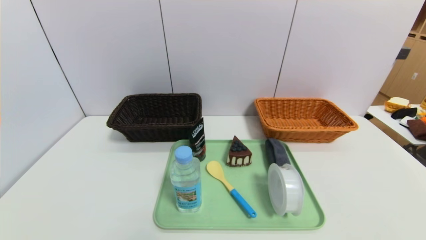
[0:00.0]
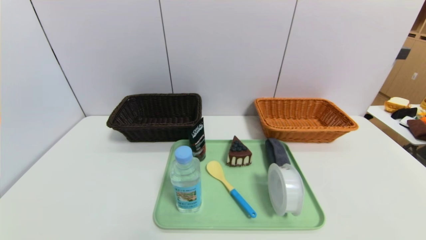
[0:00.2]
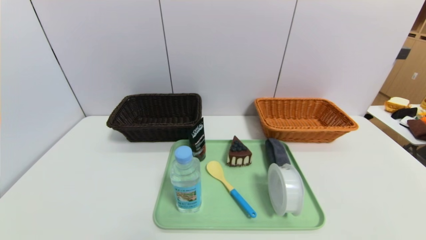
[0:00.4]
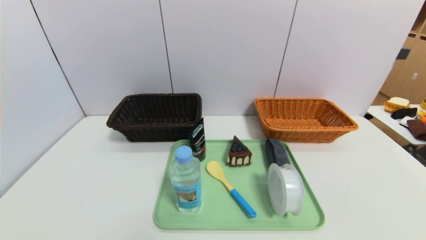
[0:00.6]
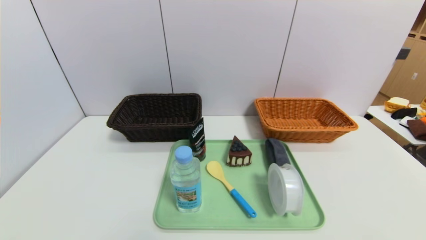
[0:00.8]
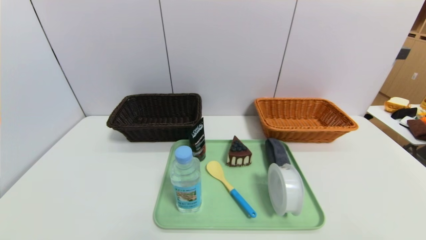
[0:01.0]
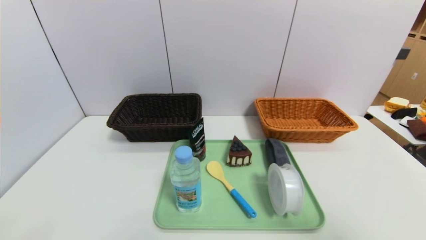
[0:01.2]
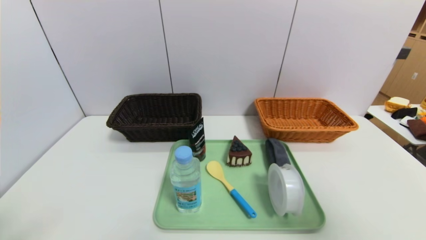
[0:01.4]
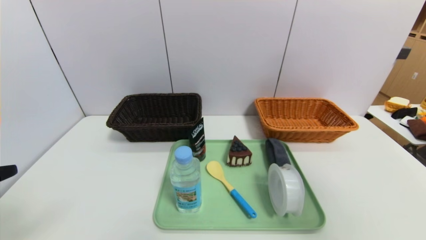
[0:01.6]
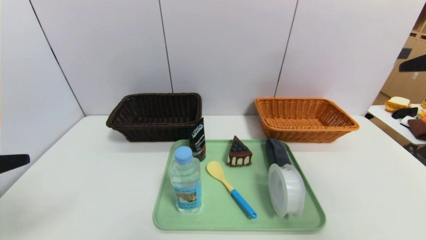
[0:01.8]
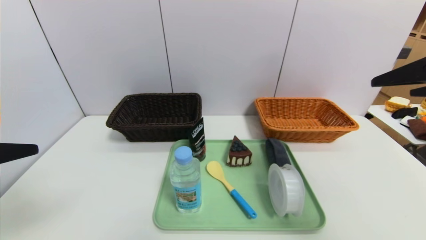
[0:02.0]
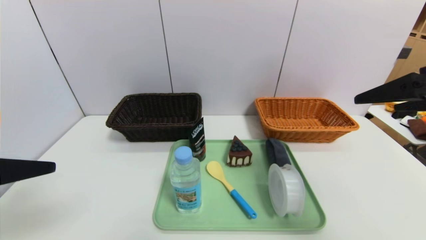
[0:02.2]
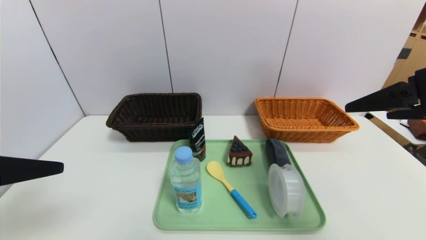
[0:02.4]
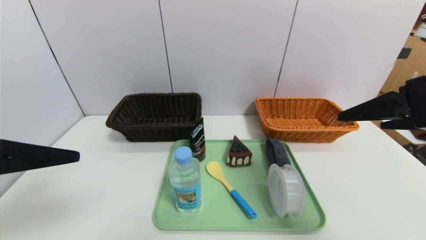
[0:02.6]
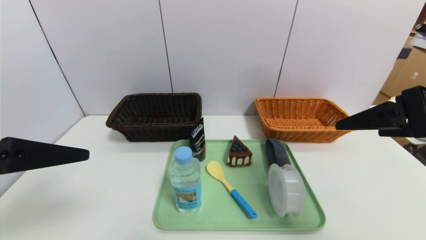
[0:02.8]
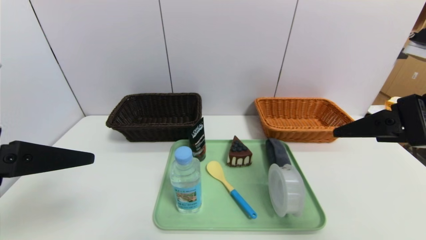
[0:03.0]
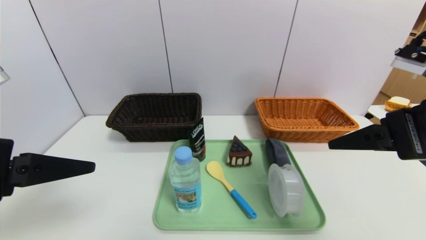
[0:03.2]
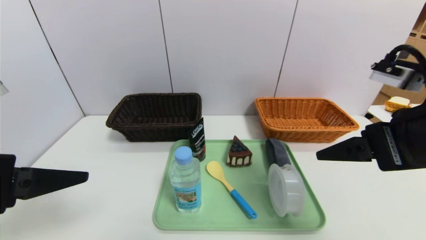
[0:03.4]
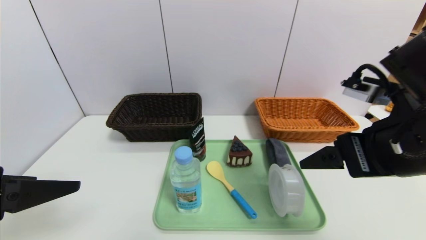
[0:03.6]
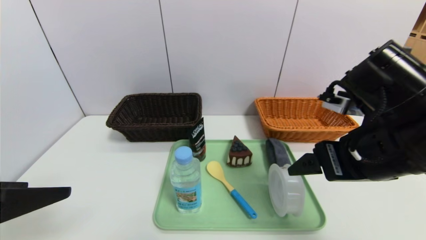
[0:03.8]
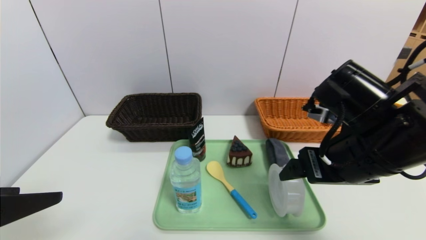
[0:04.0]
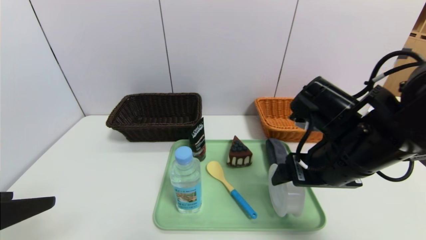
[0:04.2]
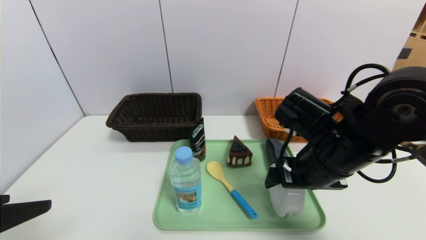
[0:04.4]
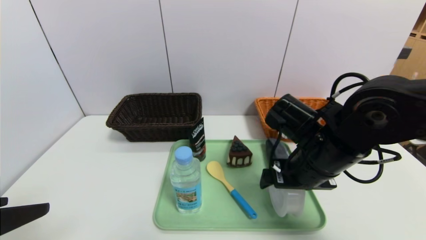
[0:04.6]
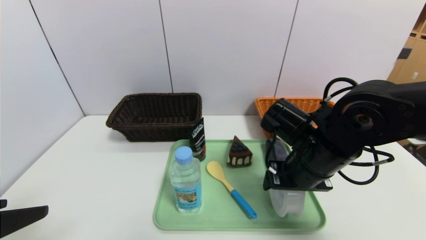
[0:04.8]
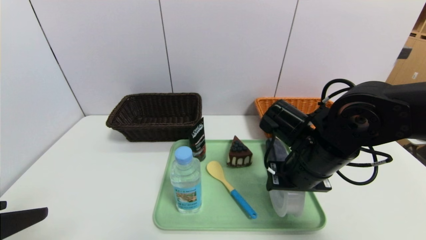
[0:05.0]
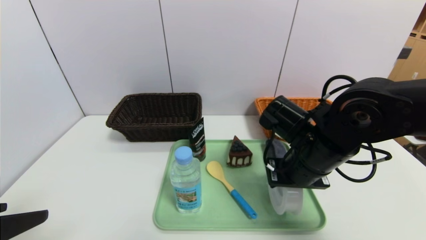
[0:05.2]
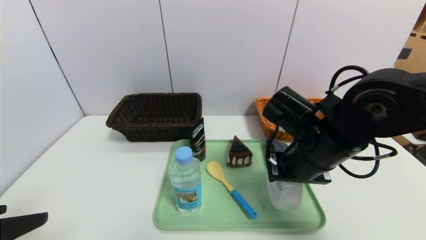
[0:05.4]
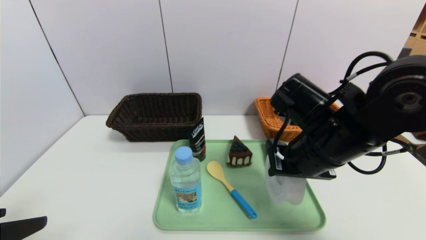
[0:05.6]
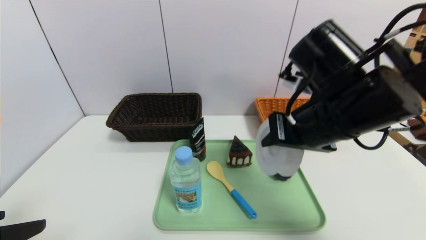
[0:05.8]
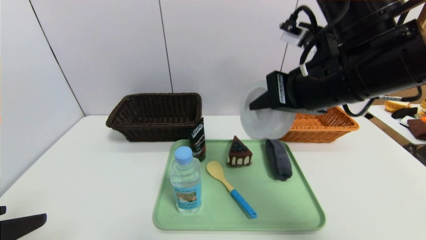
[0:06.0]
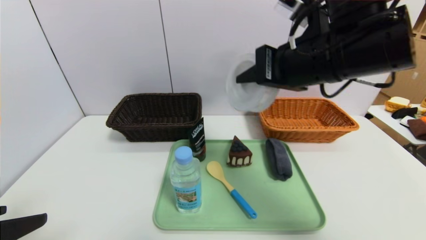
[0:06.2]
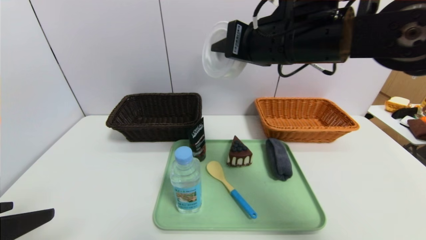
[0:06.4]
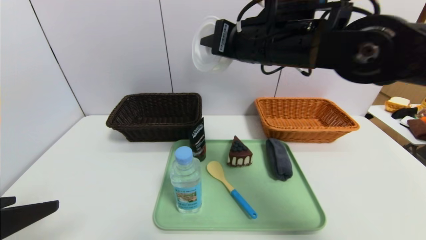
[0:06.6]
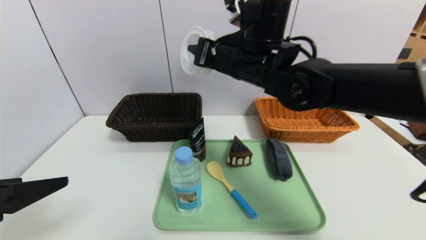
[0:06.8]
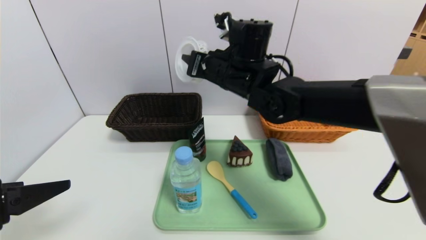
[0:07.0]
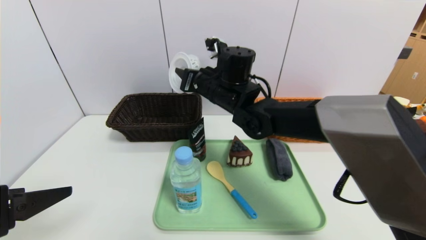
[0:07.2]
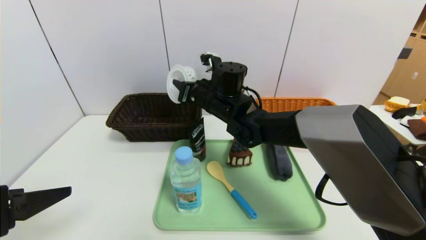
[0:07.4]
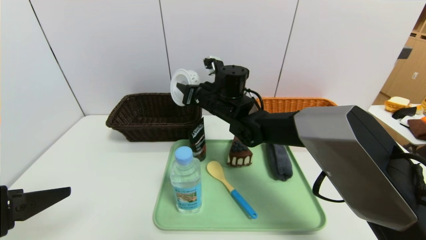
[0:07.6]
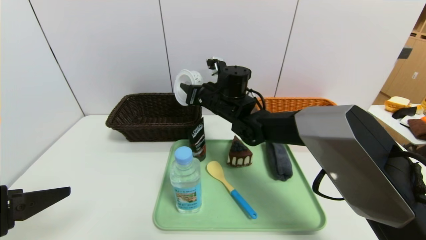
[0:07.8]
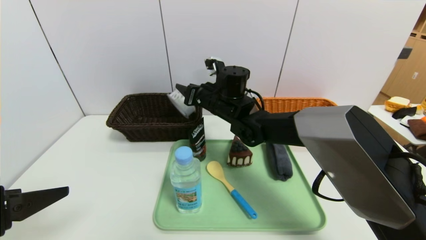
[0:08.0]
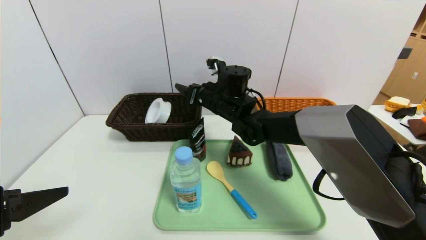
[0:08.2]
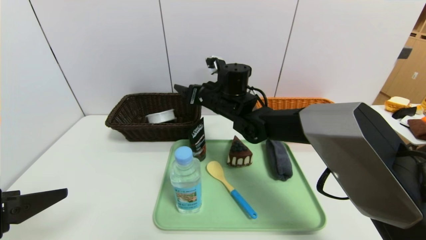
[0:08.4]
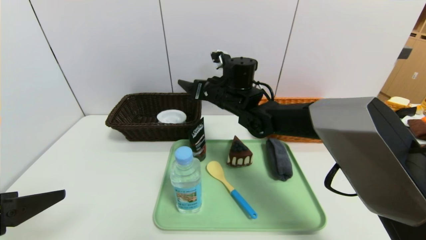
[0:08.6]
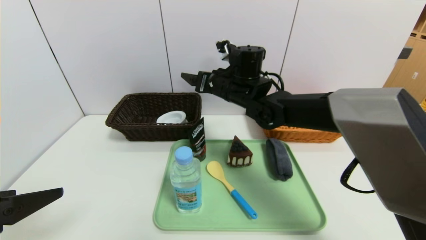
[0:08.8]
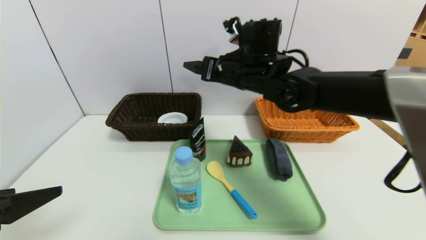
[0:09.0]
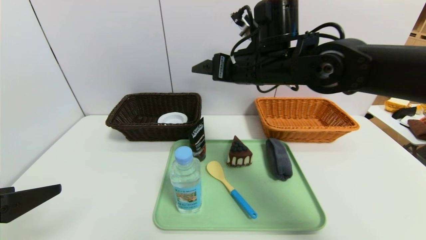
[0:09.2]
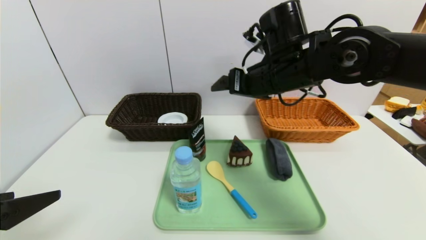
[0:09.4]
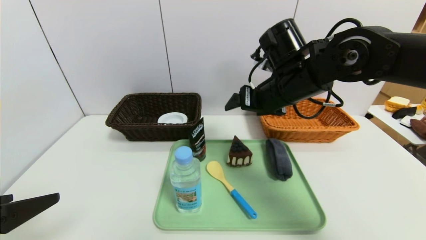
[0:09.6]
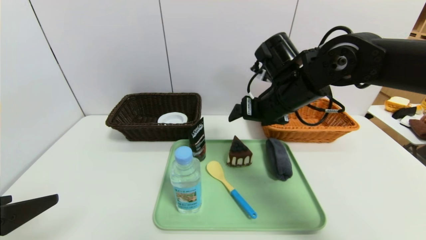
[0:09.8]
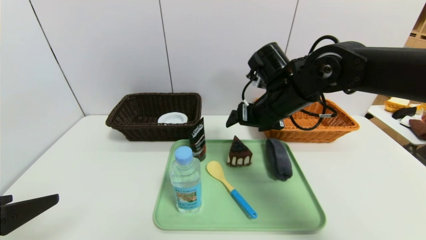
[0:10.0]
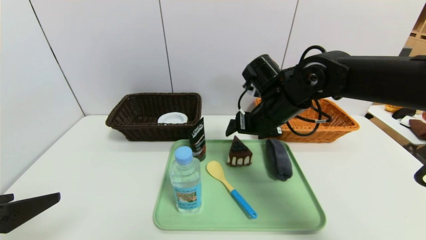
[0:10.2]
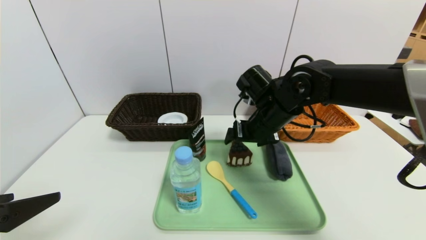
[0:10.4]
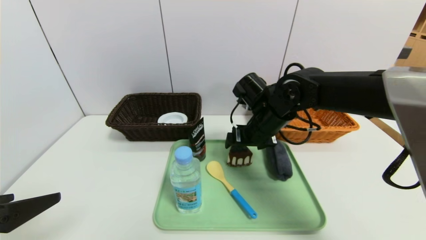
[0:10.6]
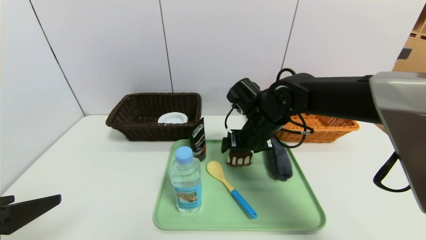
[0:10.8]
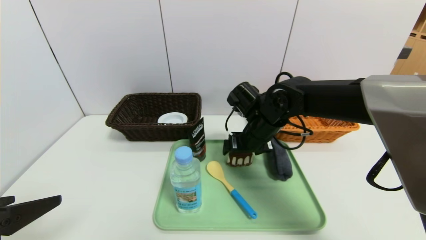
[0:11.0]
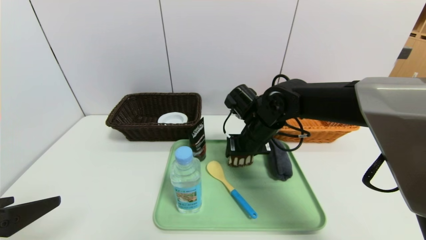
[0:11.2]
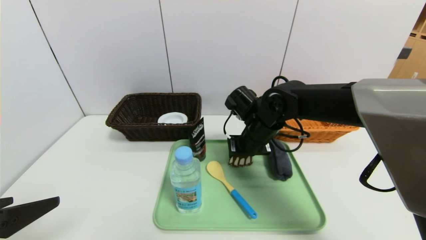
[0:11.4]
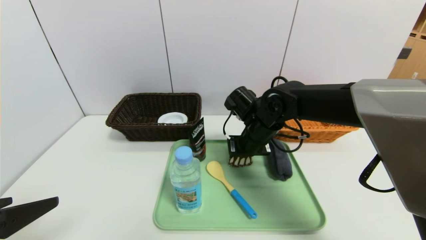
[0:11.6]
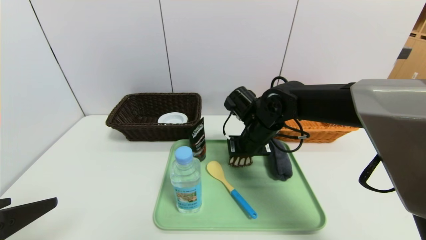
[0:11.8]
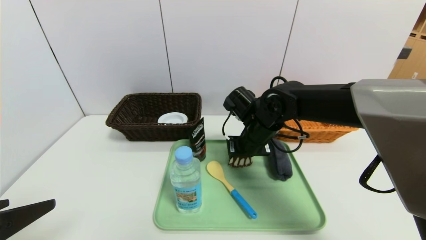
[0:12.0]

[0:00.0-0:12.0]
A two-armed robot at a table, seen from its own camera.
Task of the whole recording: place the food in the right basket with the right gripper, and place the non food items in the left basket with the left gripper.
Step, 0:00.0 to 0:08.6: Grasp the tape and put it in the left basket.
0:00.0 to 0:01.6: Both grippers travel together upward, some 25 cm.
0:01.6 to 0:03.0: The right gripper heads to the left, downward and forward, covering some 10 cm. The left gripper travels forward by approximately 5 cm.
0:03.0 to 0:04.4: The right gripper is displaced downward, to the left and forward by roughly 15 cm. Meanwhile the left gripper shifts by roughly 5 cm.
0:04.4 to 0:06.0: The right gripper goes roughly 10 cm upward, and closes.
0:06.0 to 0:07.6: The right gripper travels forward, to the left and downward by about 25 cm.
0:07.6 to 0:09.0: The right gripper travels upward and to the right by some 10 cm, and opens up.
0:09.0 to 0:10.4: The right gripper goes approximately 10 cm downward.
0:10.4 to 0:12.0: The right gripper closes.

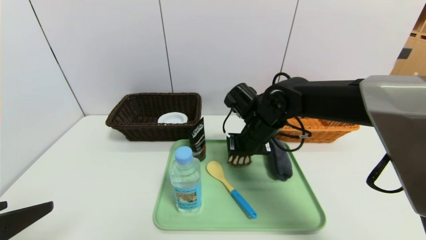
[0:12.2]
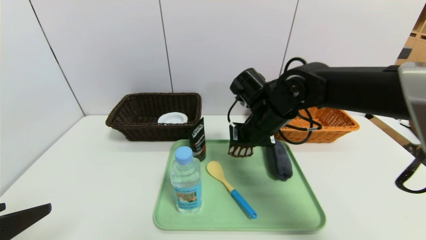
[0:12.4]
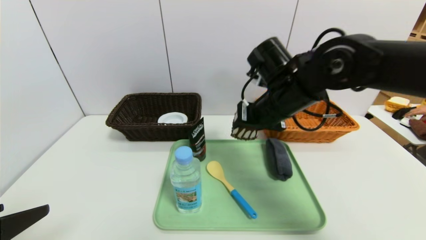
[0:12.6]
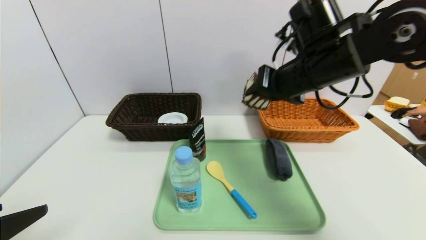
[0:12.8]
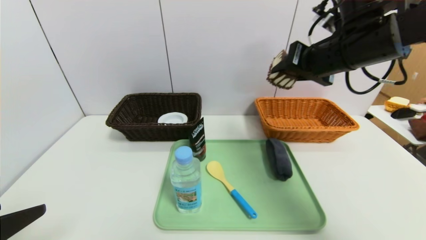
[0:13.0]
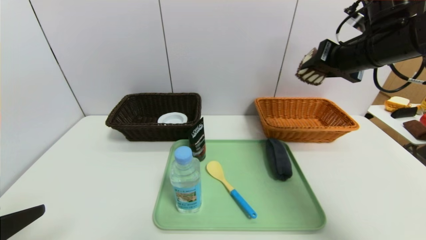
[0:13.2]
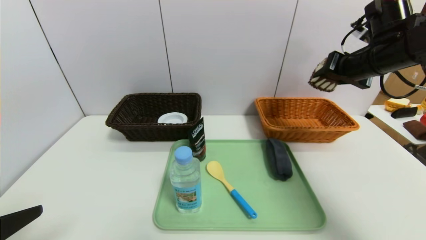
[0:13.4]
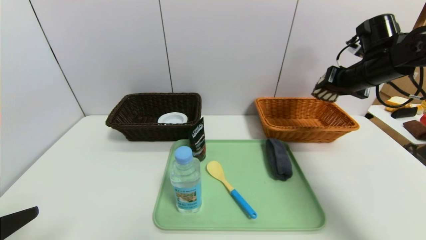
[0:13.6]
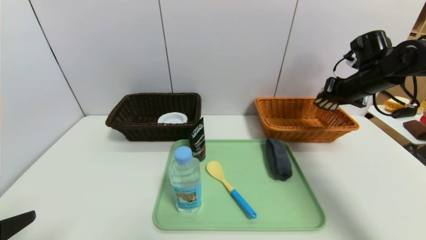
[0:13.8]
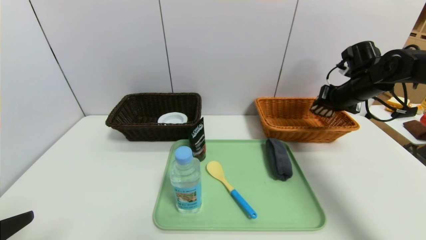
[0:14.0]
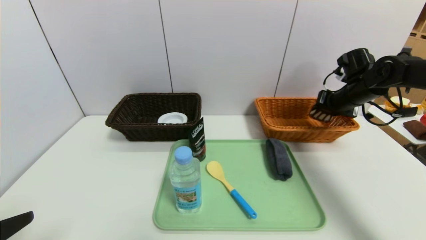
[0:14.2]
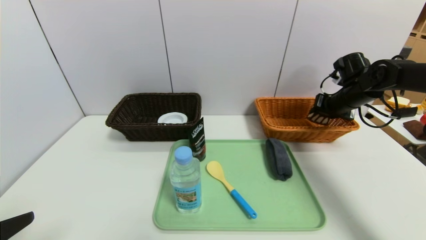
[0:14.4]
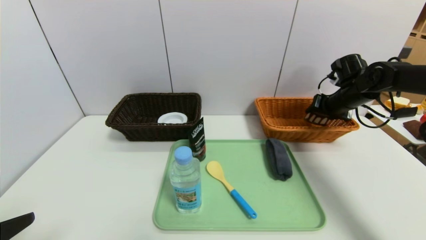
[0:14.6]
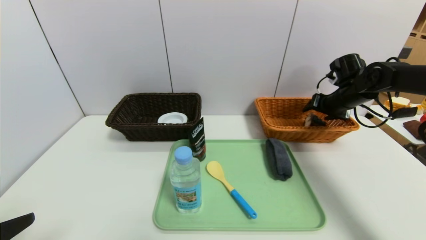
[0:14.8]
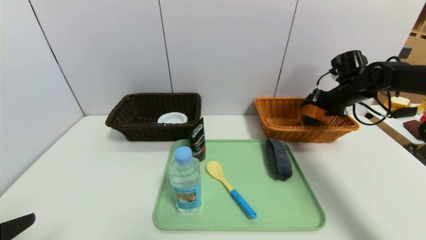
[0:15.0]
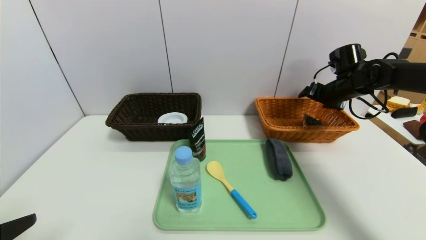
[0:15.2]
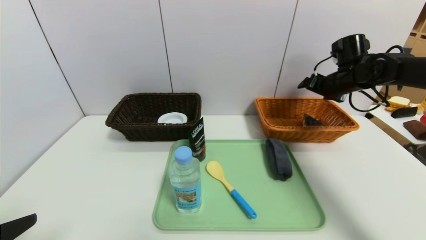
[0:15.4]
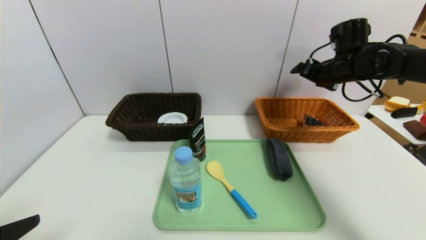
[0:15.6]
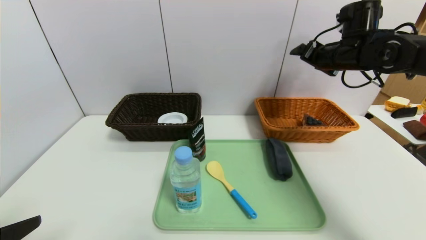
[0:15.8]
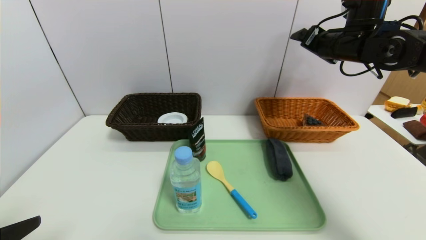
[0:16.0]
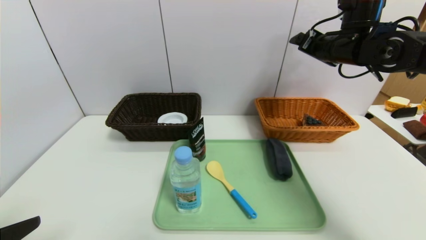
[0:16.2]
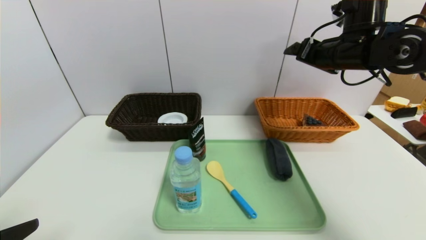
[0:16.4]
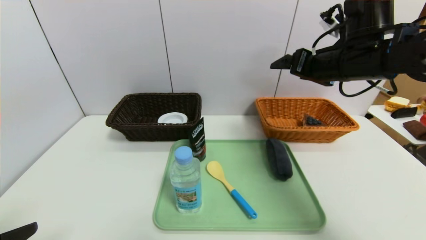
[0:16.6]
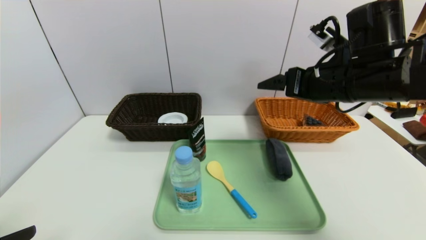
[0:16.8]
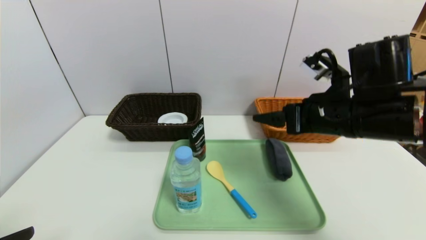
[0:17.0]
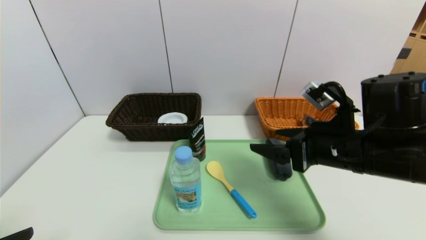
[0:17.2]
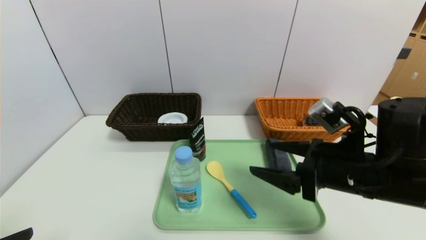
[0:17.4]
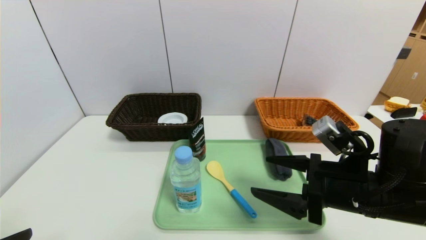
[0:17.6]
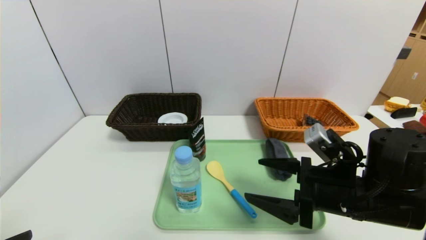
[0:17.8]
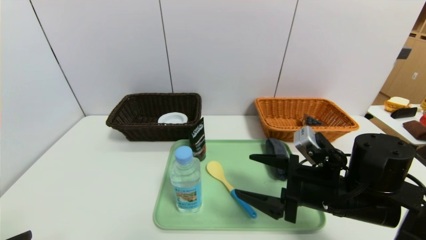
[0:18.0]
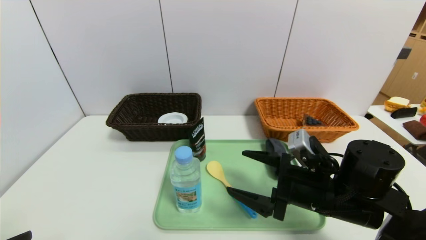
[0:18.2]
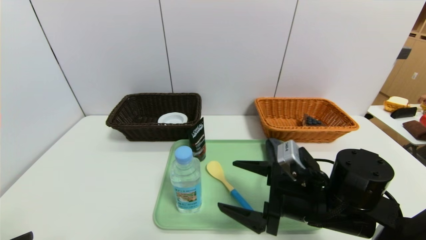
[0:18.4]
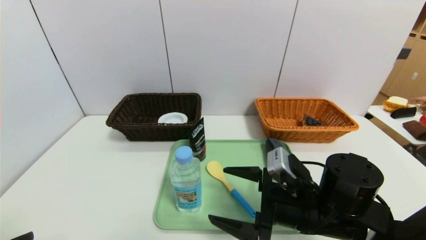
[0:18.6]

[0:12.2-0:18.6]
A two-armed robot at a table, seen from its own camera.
Task of the whole recording: place the food in the right basket with the right gripper, and place the non food items in the left basket with the left gripper.
Step, 0:12.2 to 0:15.2: Grasp the triangle cake and put it in the right basket.
0:12.2 to 0:13.8: The right gripper goes some 25 cm to the right.
0:13.8 to 0:15.4: The right gripper opens.
0:15.4 to 0:17.0: The right gripper shifts roughly 25 cm backward and to the left.
0:17.0 to 0:18.6: The right gripper travels downward and to the left by some 15 cm.
